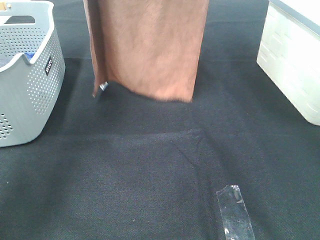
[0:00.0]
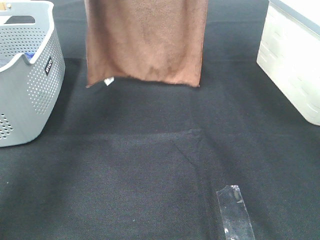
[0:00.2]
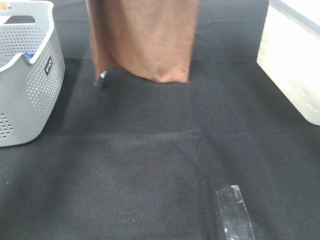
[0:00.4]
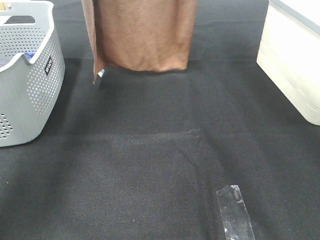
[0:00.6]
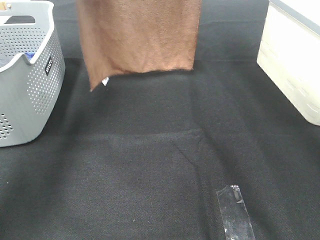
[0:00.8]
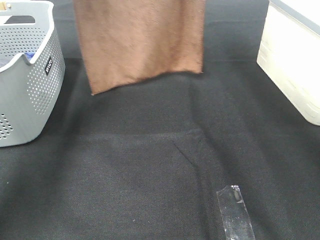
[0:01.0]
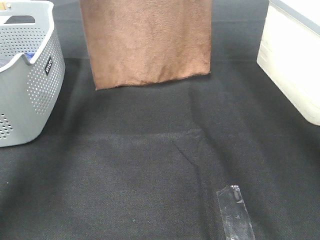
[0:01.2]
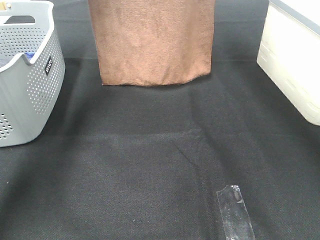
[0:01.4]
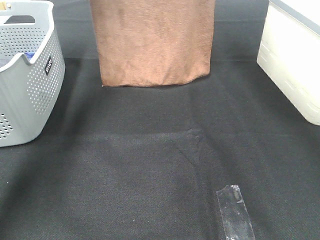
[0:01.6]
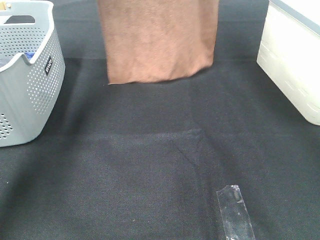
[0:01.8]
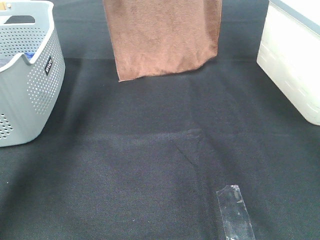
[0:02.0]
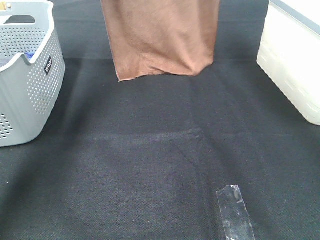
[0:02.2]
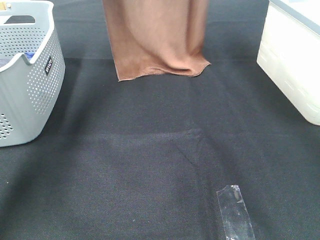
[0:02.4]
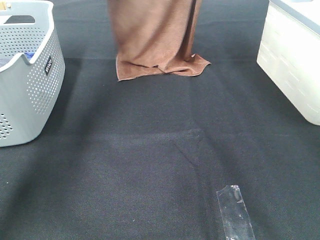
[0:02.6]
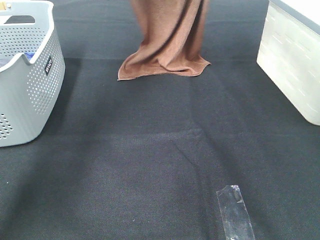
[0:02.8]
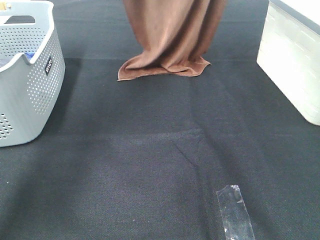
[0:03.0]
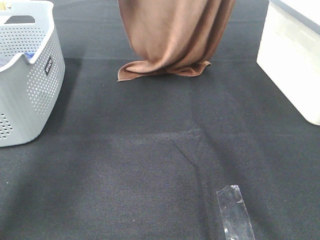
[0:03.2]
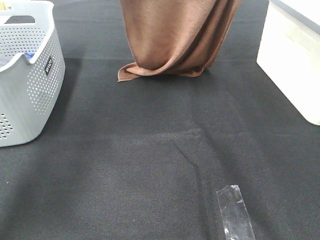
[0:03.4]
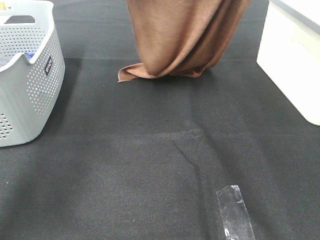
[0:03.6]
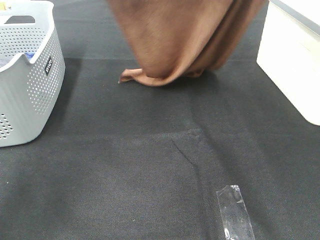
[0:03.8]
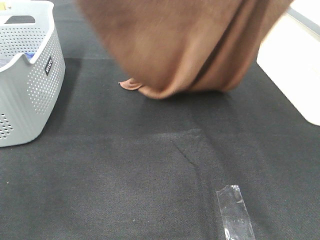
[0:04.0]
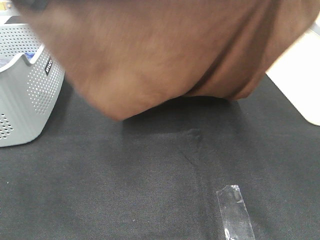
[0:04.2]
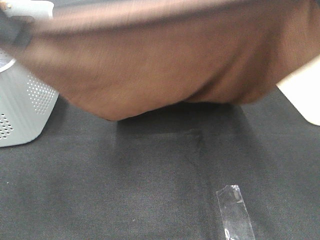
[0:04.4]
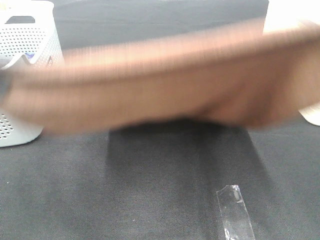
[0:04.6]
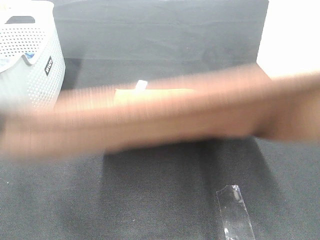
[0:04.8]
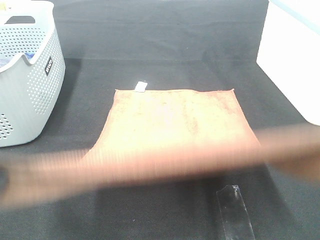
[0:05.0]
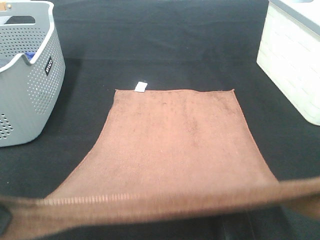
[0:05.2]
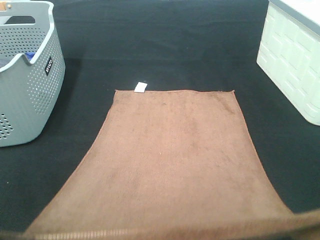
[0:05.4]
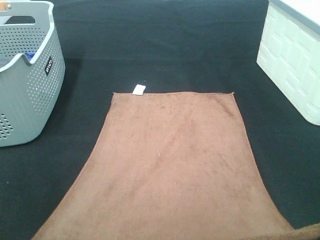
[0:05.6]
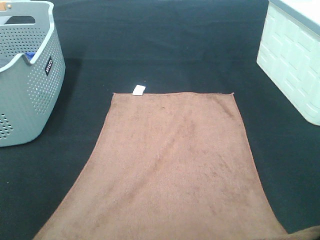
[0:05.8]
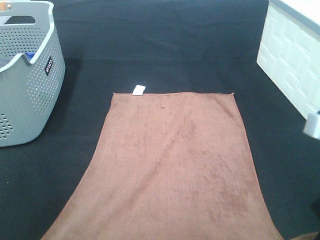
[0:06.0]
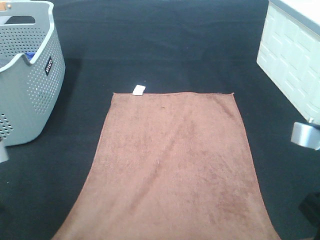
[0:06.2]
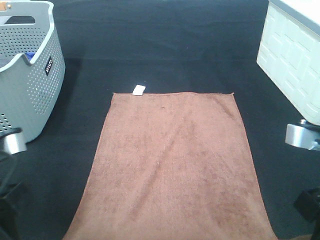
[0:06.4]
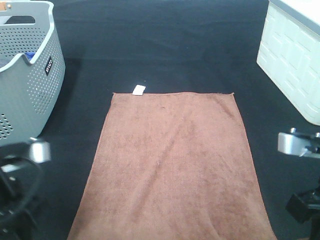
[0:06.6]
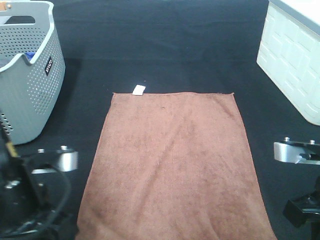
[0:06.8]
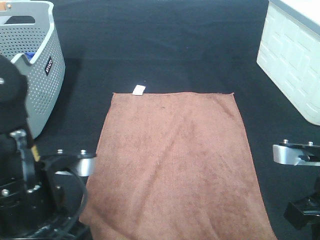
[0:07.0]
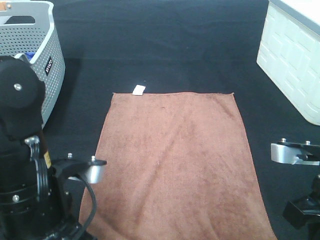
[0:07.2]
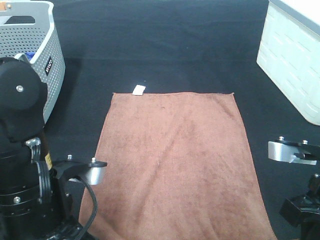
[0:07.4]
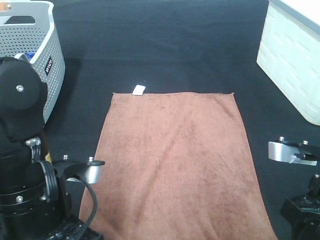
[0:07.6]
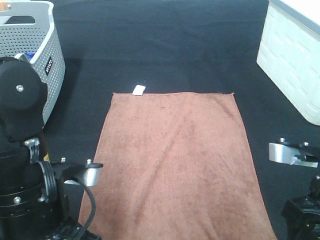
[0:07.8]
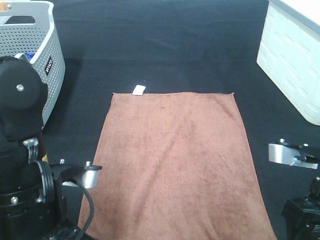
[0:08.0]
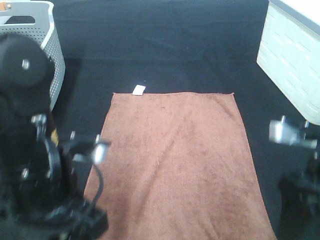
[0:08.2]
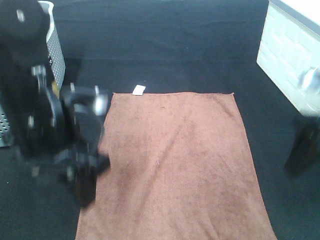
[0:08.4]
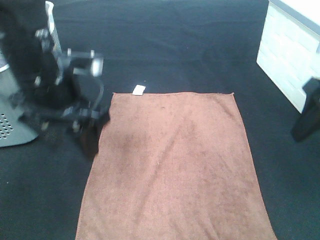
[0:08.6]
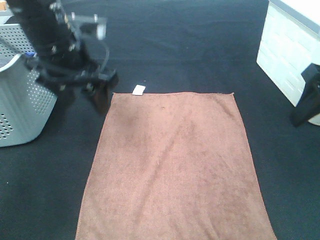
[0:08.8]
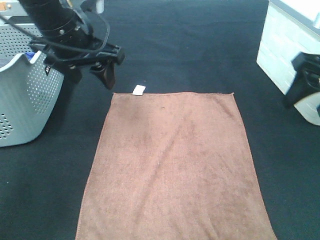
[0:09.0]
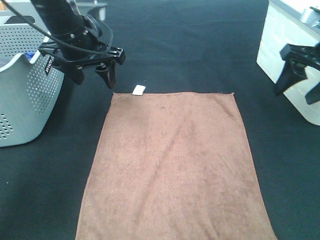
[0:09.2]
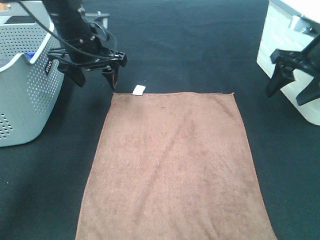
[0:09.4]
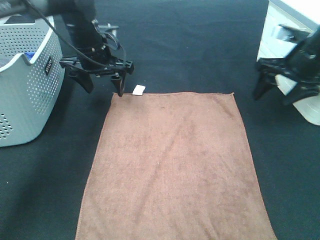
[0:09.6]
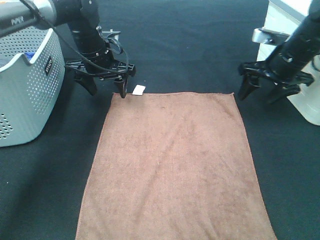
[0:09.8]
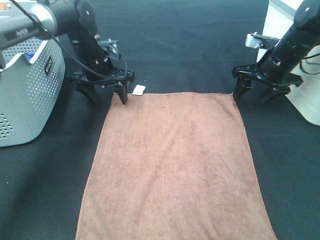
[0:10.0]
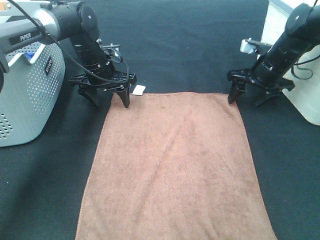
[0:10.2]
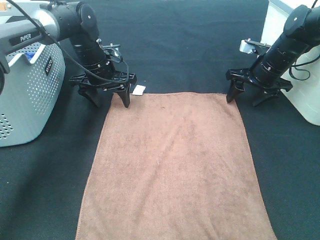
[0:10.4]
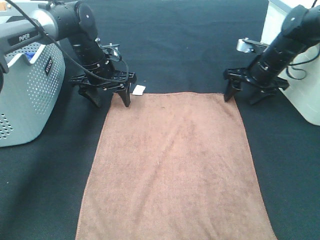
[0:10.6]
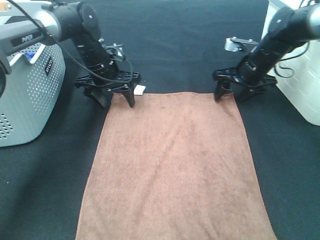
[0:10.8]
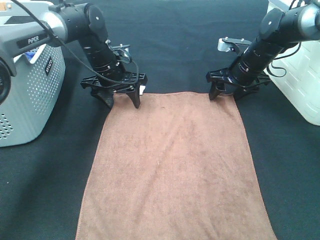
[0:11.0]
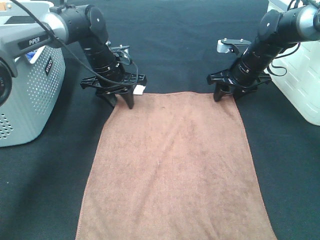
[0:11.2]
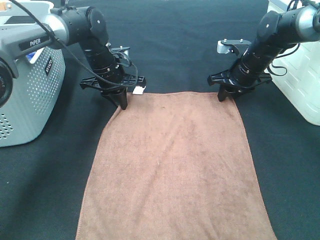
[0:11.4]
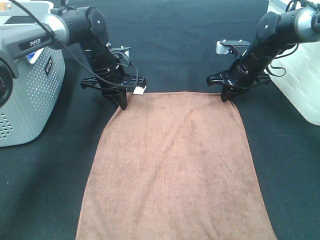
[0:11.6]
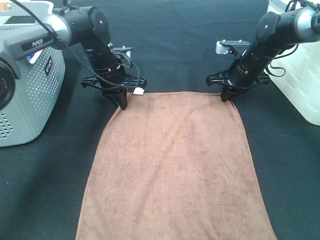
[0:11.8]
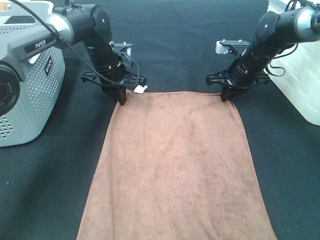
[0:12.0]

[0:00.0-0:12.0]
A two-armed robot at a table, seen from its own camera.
Task of the whole recording: Remove the towel and place it.
Step, 0.0 to 3.8 s: Left hand: spread the brown towel flat on the table.
Step, 0.0 to 3.8 s: Right hand: spread the brown towel flat on the table.
Step, 4.0 to 9.8 s: Left hand:adjust the brown towel.
Step, 4.0 to 9.8 s: Right hand:adjust the brown towel.
0.0 to 1.6 s: The left gripper heads forward and downward, covering about 10 cm. Meanwhile the right gripper shifts some 10 cm forward.
1.6 to 3.0 s: The two grippers go approximately 5 cm backward.
3.0 to 4.4 s: Both grippers move backward, some 25 cm.
4.4 to 6.0 s: The left gripper heads downward and backward, covering roughly 20 cm. The right gripper heads downward, covering about 20 cm.
6.0 to 7.6 s: The left gripper shifts approximately 10 cm to the right, forward and downward, and opens up; the right gripper is displaced downward by some 5 cm, and opens.
7.6 to 9.0 s: The right gripper goes about 15 cm forward, upward and to the right. Meanwhile the left gripper shifts some 25 cm forward and upward.
9.0 to 10.4 s: The right gripper travels forward and downward by some 20 cm, while the left gripper shifts some 20 cm downward and forward.
10.4 to 12.0 s: The left gripper closes up. The right gripper closes its fingers.

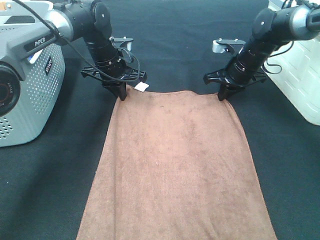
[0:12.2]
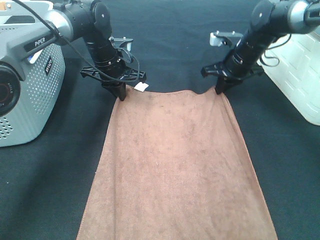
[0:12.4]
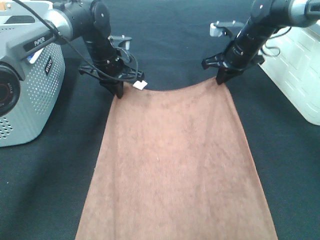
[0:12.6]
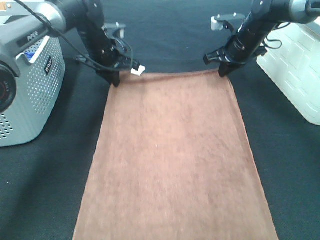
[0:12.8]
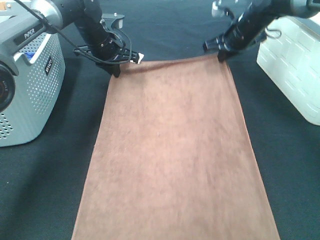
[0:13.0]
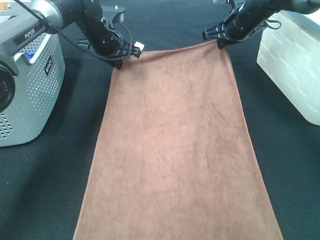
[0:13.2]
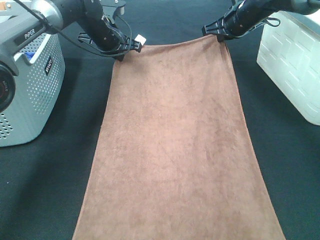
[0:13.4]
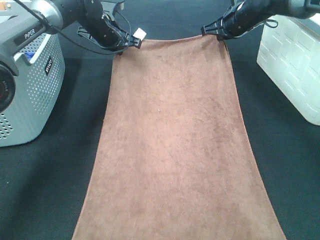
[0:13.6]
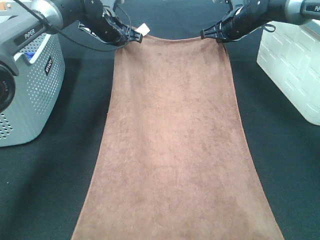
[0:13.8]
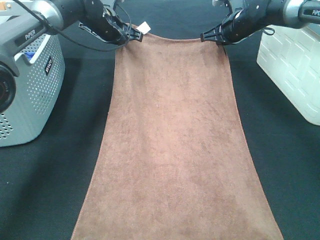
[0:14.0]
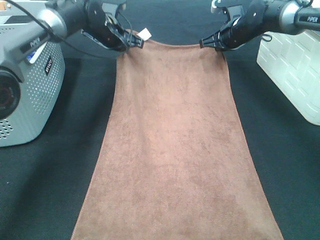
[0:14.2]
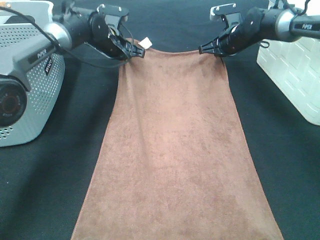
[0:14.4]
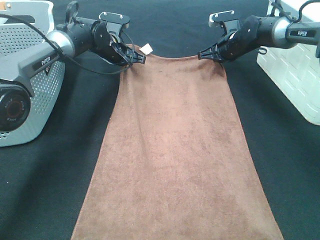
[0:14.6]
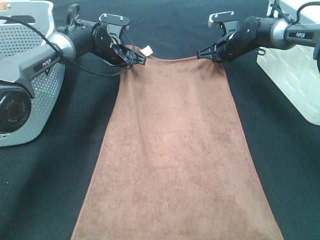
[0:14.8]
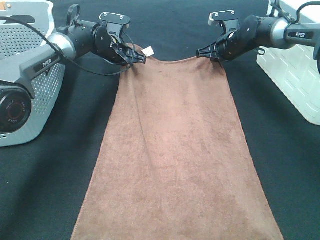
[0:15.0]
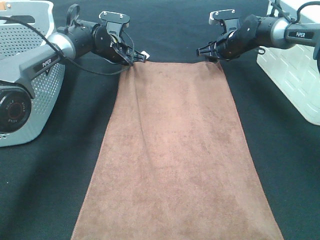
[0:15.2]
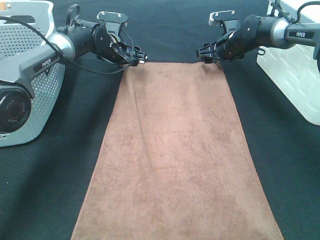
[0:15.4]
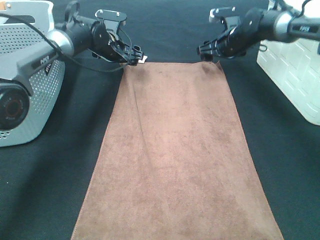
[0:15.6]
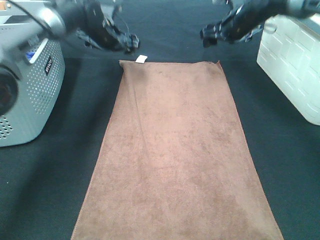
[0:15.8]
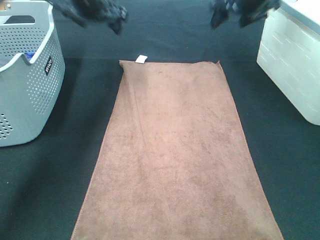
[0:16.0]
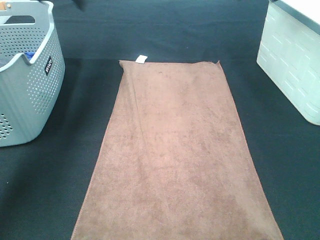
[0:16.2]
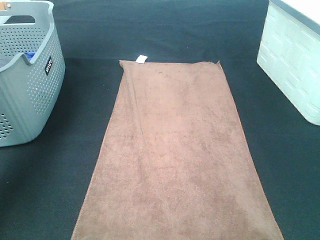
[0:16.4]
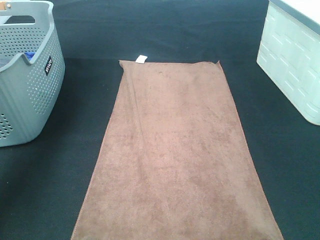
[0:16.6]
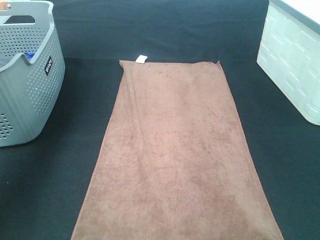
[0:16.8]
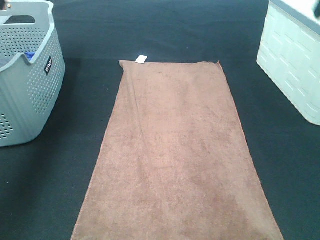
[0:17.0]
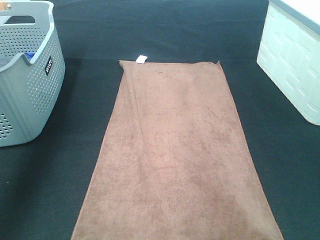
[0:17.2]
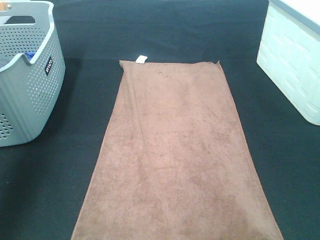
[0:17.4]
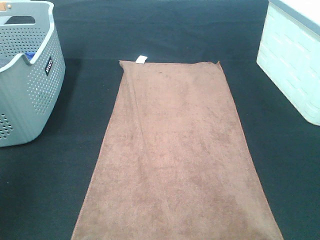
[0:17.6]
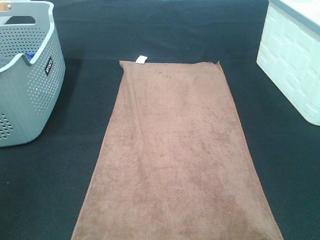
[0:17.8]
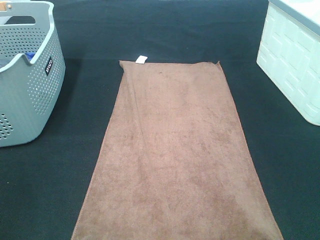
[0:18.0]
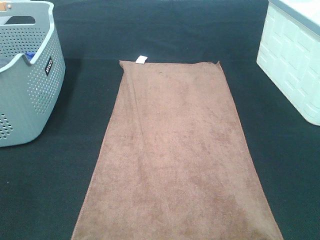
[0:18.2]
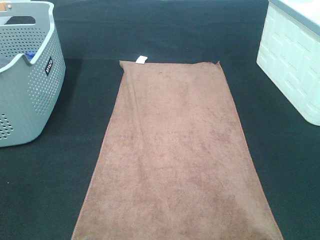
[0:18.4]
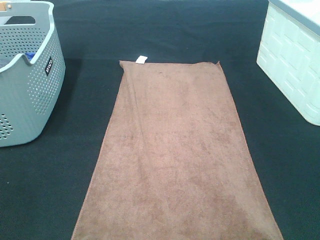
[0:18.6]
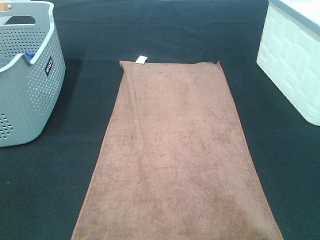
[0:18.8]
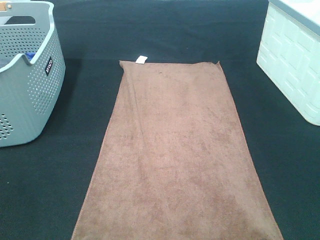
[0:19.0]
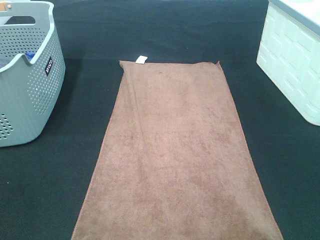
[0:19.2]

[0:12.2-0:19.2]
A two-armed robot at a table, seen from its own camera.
Task of the whole recording: Remove the towel and place it.
12.2 to 13.6 s: The left gripper ends up about 5 cm from where it was. The right gripper moves upward and forward, some 10 cm.
13.6 to 15.0 s: Both grippers travel together downward, about 5 cm.
15.0 to 16.4 s: The right gripper is displaced upward and backward by approximately 30 cm, and opens its fingers. Meanwhile the left gripper shifts about 30 cm upward and to the left, and opens.
16.4 to 17.8 s: Both grippers move backward, roughly 40 cm.

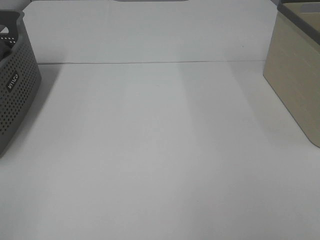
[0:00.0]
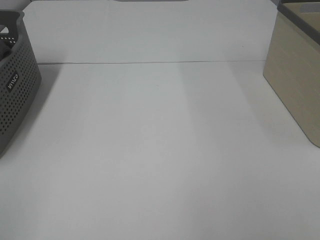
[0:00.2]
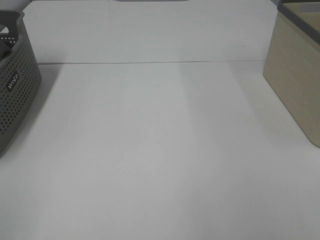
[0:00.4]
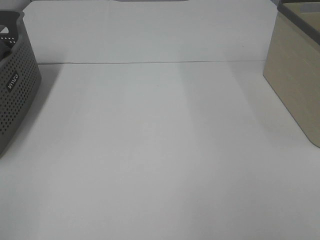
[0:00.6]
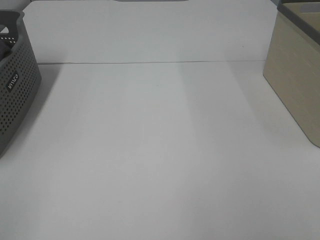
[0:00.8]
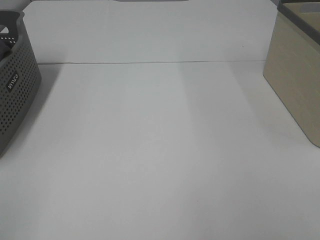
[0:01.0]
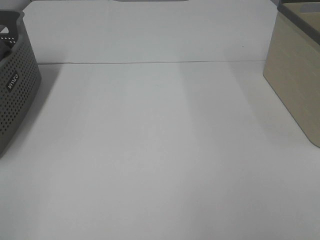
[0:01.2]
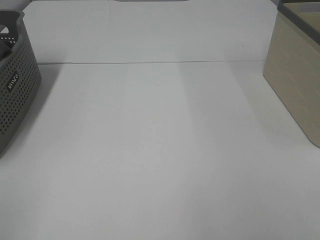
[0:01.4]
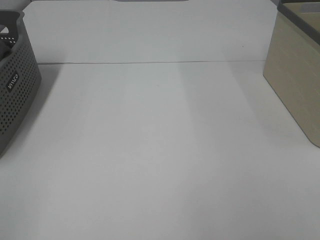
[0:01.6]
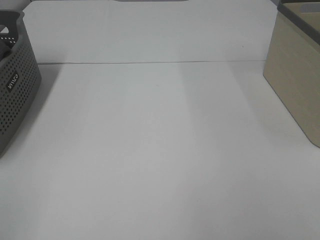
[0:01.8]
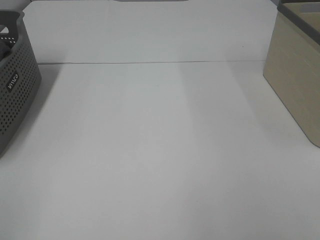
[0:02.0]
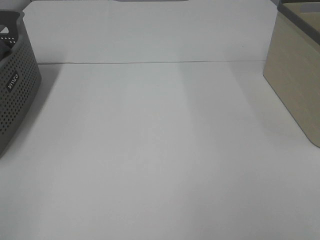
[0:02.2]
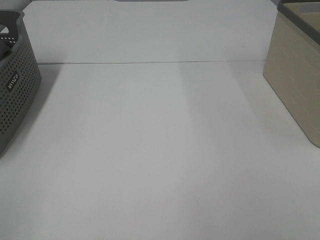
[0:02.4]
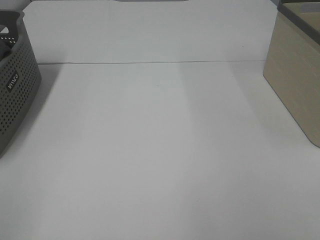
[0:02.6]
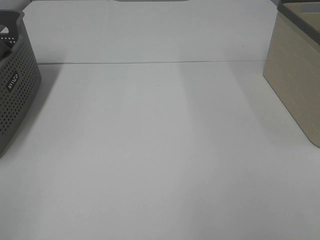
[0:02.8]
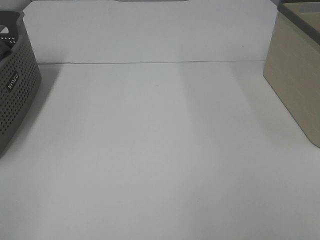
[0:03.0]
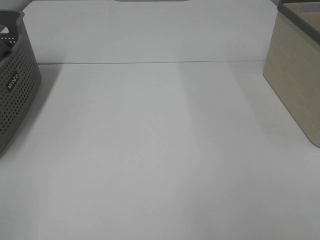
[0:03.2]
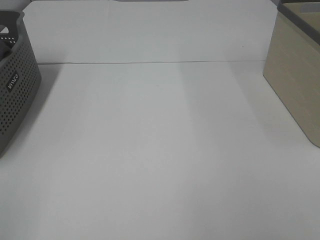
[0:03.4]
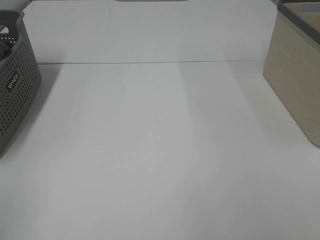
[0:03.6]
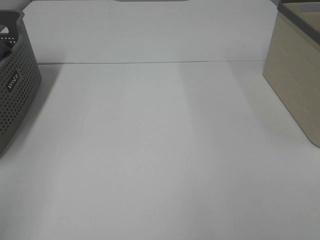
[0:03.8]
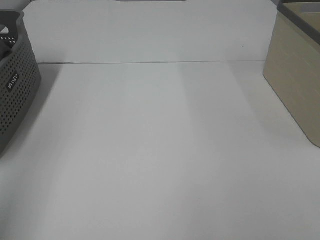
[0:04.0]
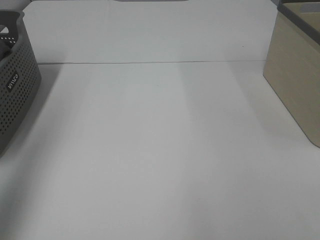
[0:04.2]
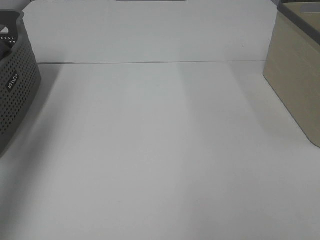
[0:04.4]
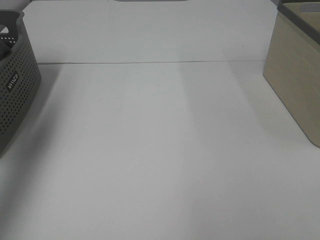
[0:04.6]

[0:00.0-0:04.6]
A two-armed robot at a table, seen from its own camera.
Task of the whole recording: Remove the towel and place it.
0.0 to 3.0 s: Both grippers stay put.
3.0 to 4.6 s: The left gripper shifts about 30 cm forward.
